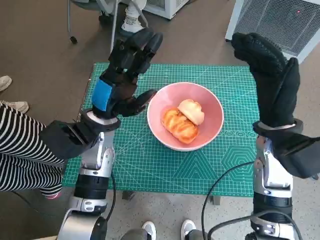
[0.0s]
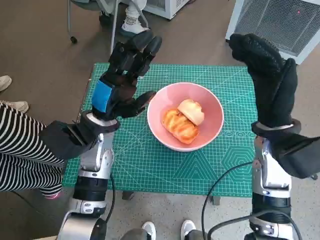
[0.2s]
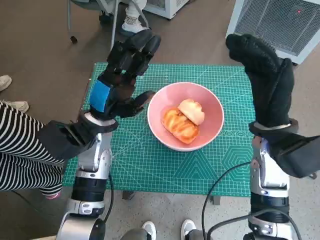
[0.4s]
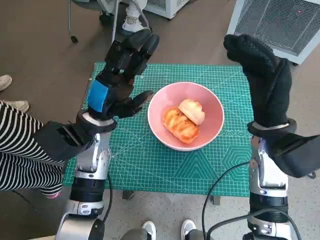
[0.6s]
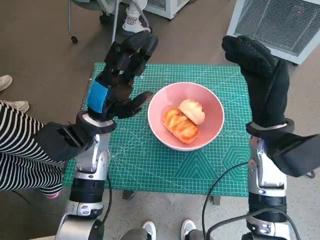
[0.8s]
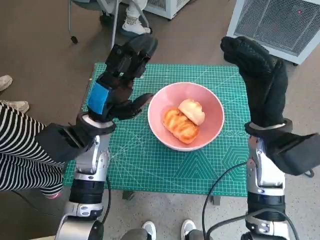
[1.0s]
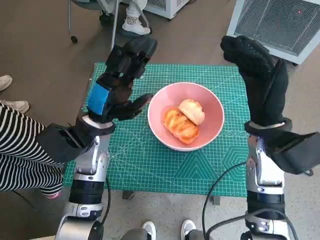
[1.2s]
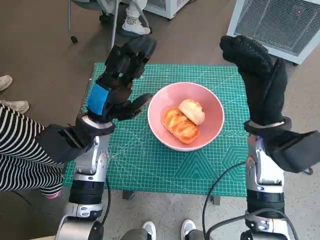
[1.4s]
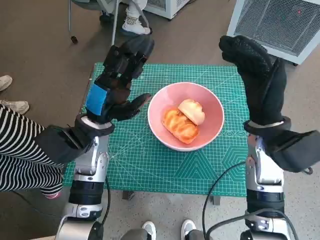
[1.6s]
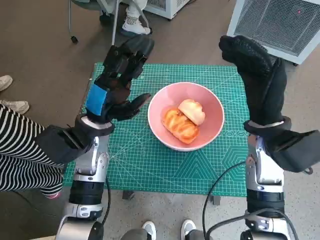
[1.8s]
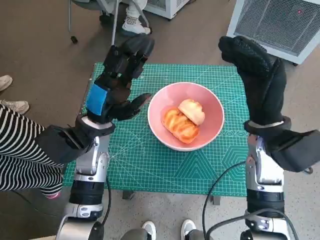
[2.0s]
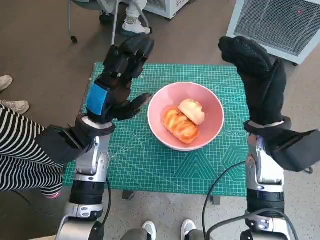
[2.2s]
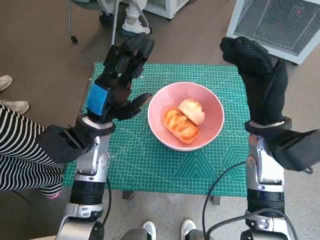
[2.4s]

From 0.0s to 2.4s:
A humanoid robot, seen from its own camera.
Task of the whole recording: Push the bowl into the center of the table and put the bread into the bowl.
From 1.2s to 2.4s: Neither hand changes place.

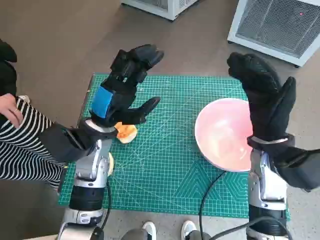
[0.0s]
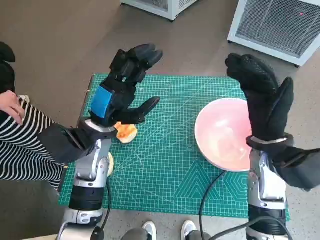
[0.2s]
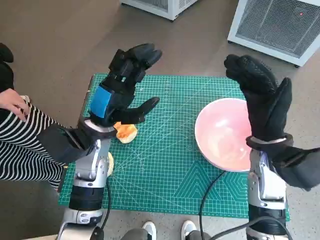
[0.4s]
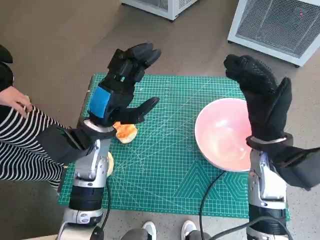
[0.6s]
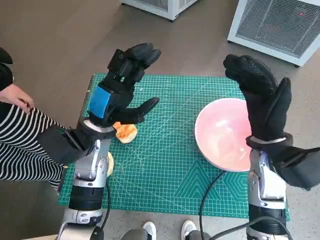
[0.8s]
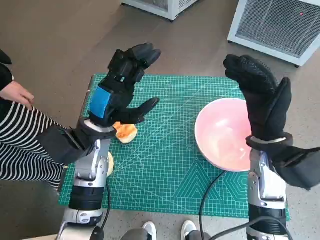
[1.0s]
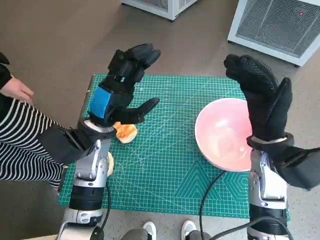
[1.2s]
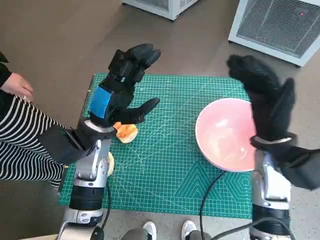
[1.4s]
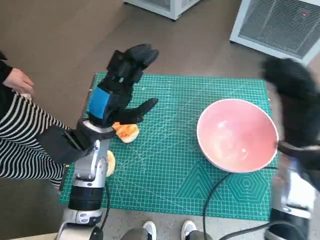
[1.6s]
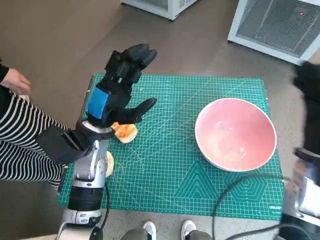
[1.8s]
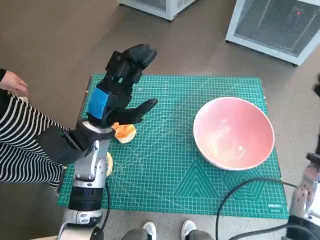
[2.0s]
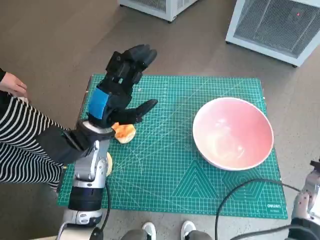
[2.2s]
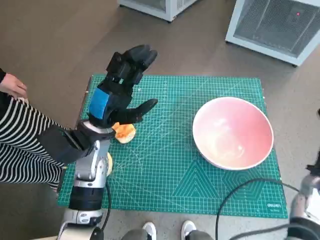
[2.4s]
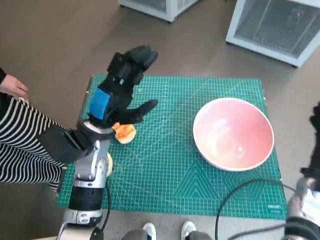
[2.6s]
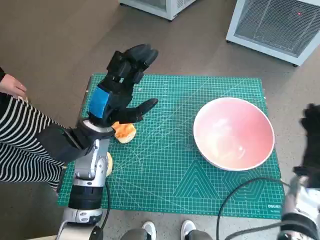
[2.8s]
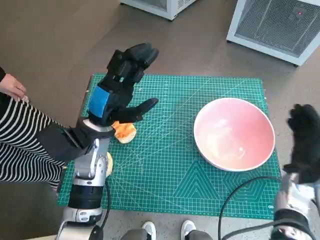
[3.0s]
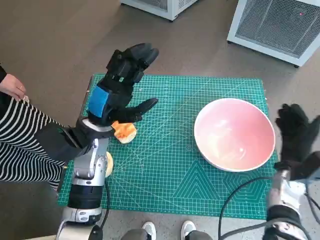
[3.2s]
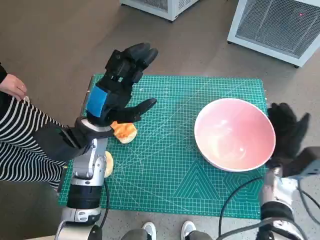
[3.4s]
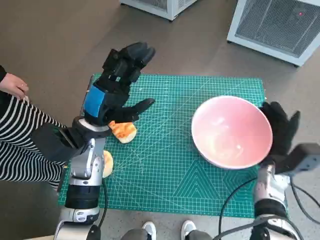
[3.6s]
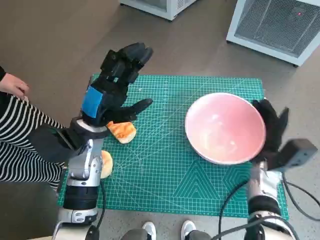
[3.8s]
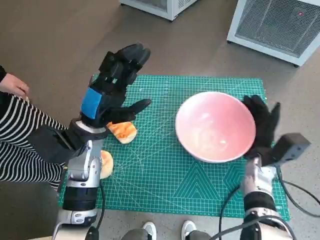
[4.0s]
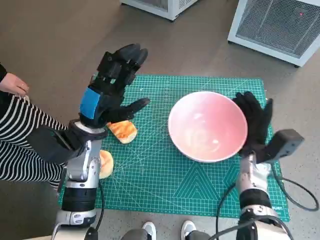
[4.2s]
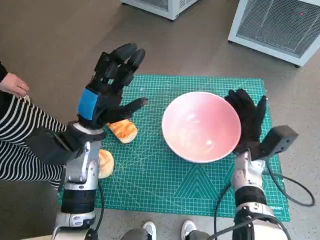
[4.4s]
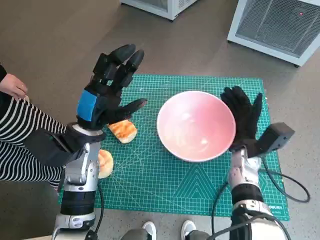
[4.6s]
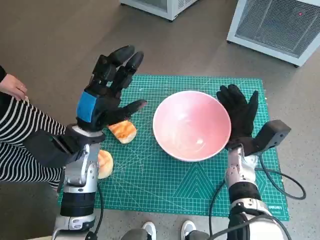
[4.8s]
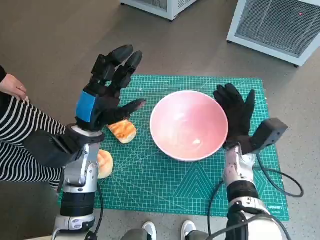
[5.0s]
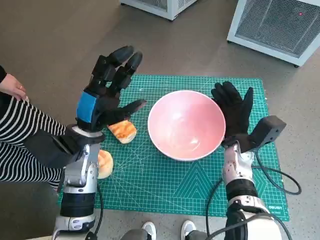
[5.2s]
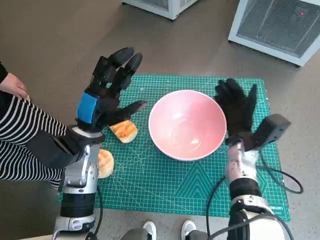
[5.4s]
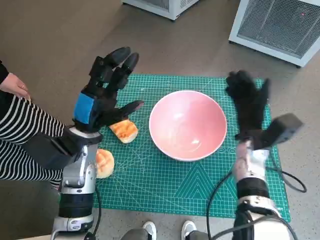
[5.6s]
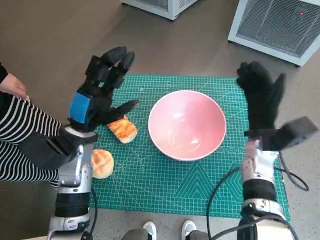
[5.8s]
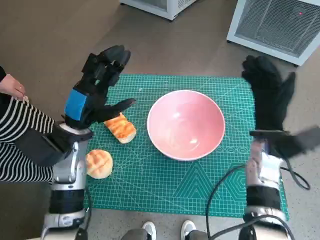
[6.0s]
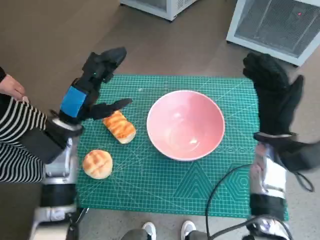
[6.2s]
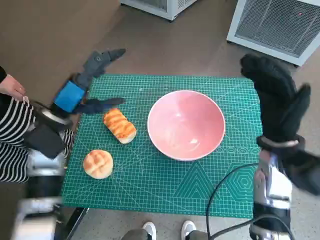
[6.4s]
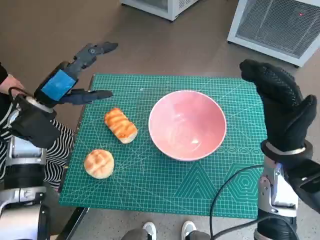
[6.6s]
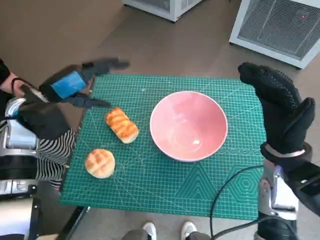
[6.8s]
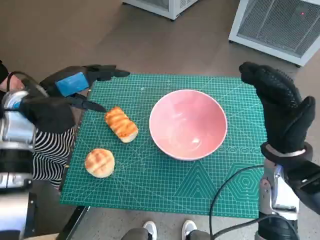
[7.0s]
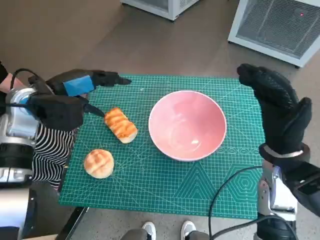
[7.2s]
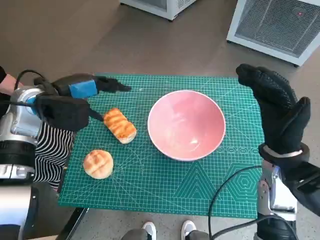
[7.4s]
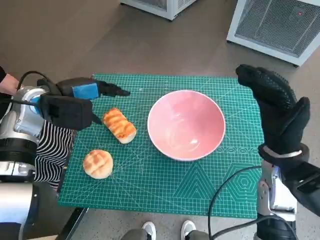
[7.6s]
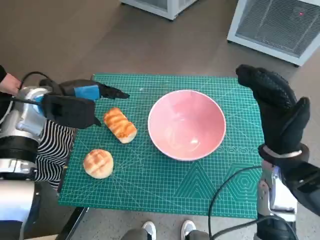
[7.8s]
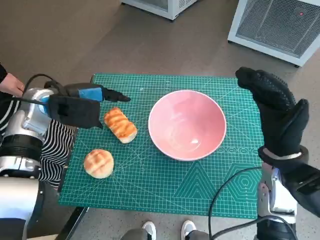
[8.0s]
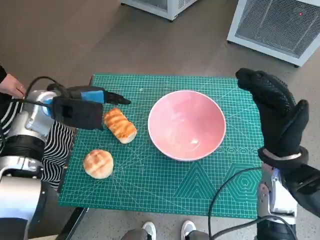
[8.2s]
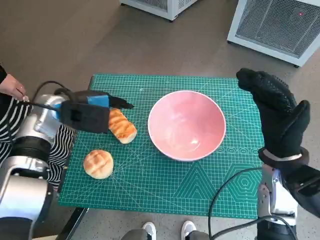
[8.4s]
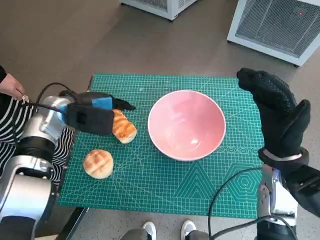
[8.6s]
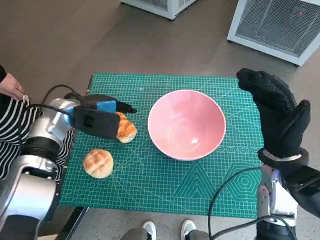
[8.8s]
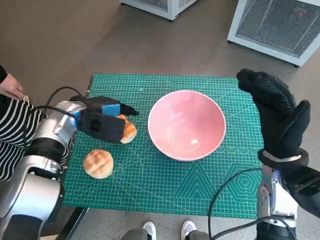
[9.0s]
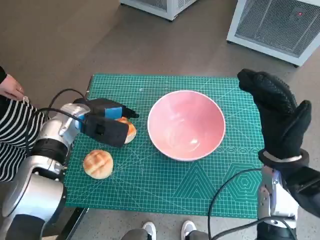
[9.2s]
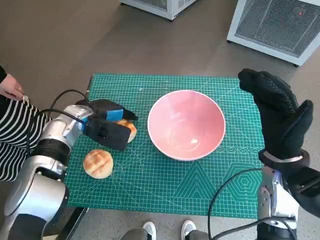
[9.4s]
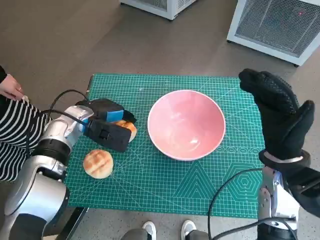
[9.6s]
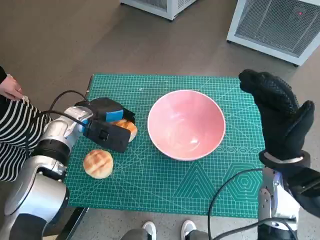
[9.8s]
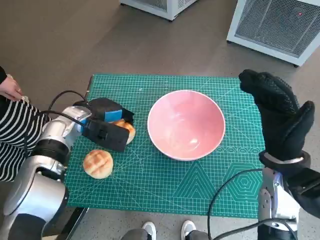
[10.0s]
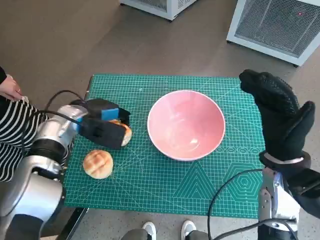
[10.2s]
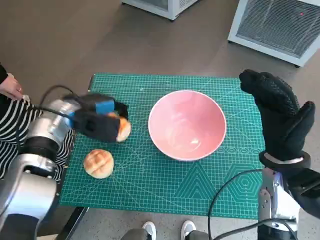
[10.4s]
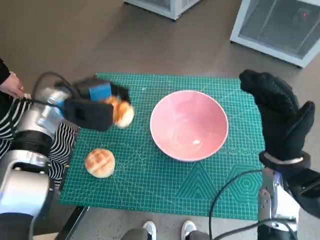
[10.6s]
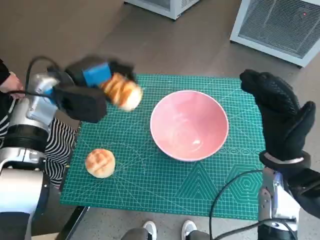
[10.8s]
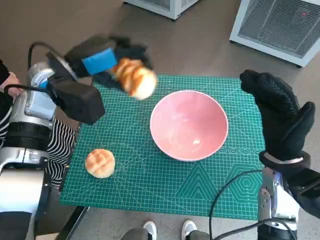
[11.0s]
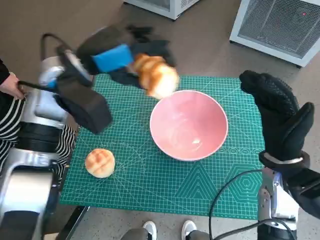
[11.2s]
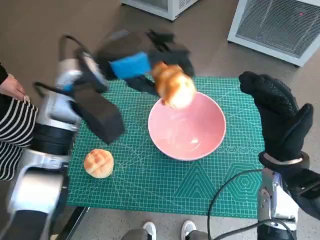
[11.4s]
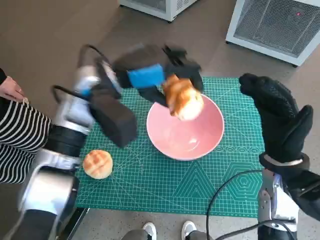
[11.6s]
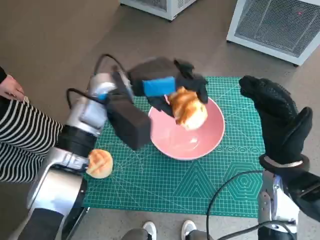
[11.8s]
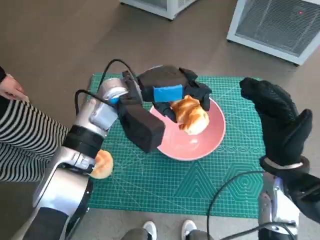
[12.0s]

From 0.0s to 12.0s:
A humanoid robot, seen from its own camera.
Task of the whole recording: Push the bowl into the center of the table and put the bread into the bowl.
Step, from 0.0s to 5.4s: Move the pink bowl to the center of table with right hand.
Step, from 5.6s to 9.8s: Grasp the long bread with left hand.
From 1.6s to 3.0s: The right hand heads downward and to the right, covering some 15 cm.
From 3.0s to 4.4s: The right hand moves to the left, roughly 10 cm.
From 4.4s to 6.0s: The right hand shifts approximately 5 cm upward.
From 6.0s to 7.6s: The left hand heads upward, forward and to the left, covering about 10 cm. The right hand travels backward by approximately 5 cm.
From 7.6s to 9.0s: The left hand is displaced downward by roughly 5 cm.
From 9.0s to 10.4s: There are only small adjustments of the hands.
From 10.4s to 12.0s: The left hand travels to the right and upward by roughly 15 cm.

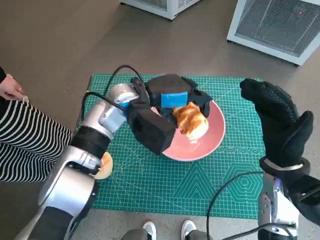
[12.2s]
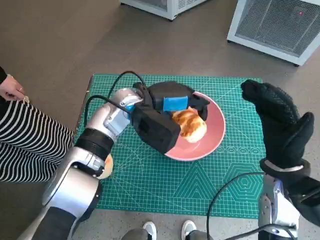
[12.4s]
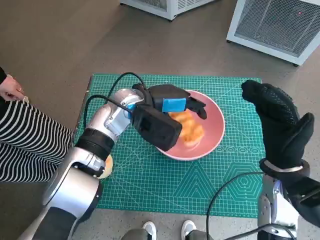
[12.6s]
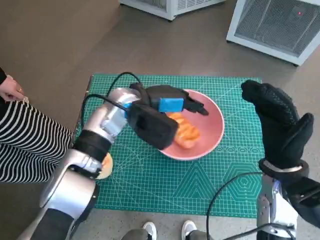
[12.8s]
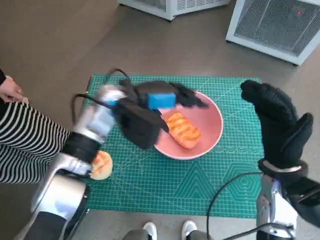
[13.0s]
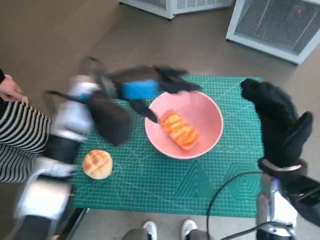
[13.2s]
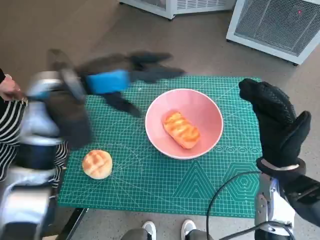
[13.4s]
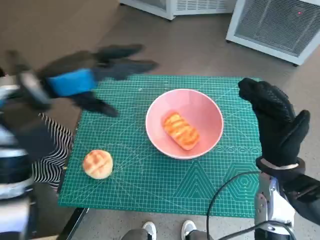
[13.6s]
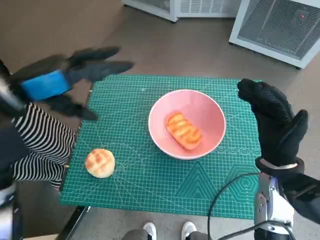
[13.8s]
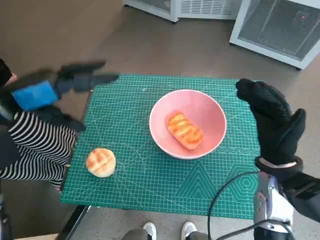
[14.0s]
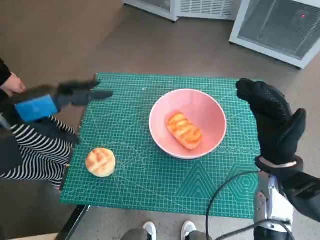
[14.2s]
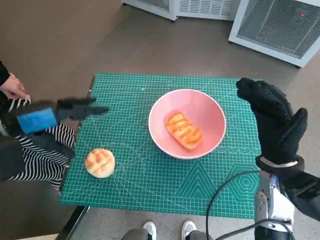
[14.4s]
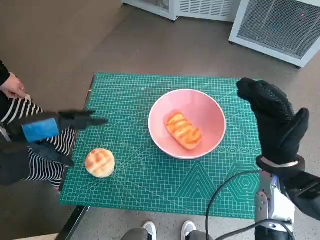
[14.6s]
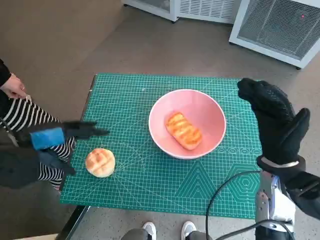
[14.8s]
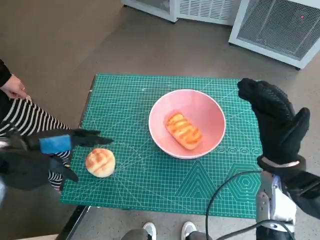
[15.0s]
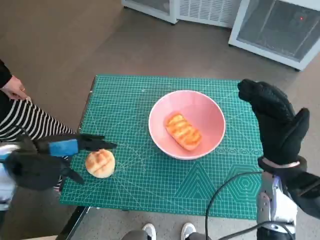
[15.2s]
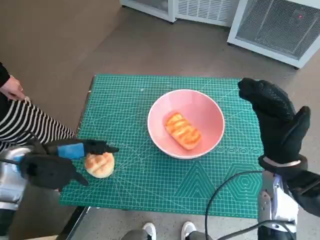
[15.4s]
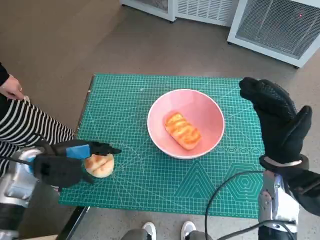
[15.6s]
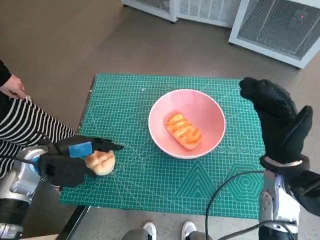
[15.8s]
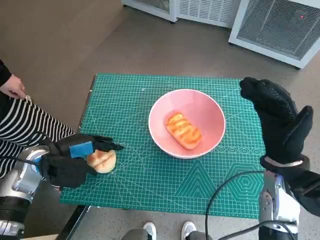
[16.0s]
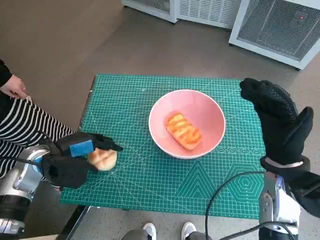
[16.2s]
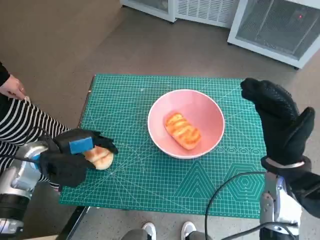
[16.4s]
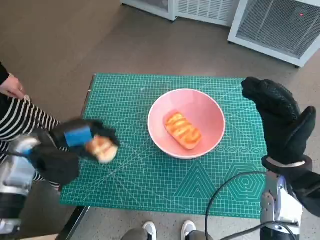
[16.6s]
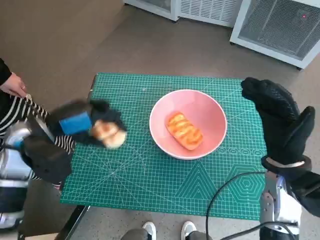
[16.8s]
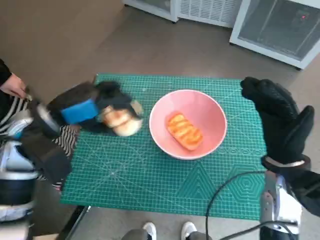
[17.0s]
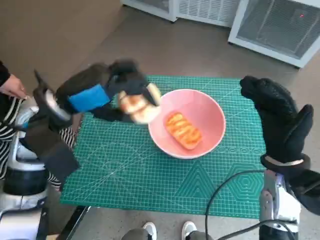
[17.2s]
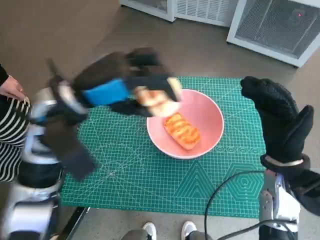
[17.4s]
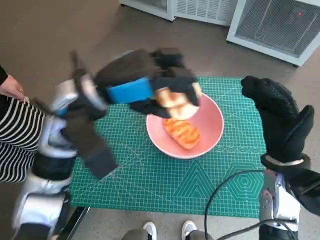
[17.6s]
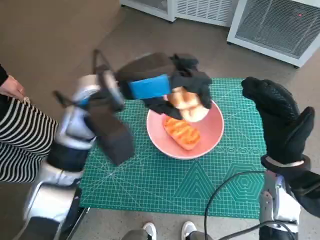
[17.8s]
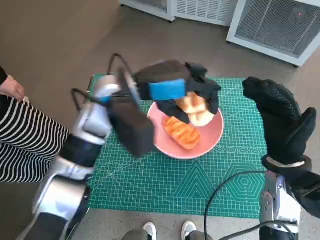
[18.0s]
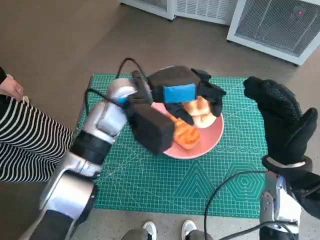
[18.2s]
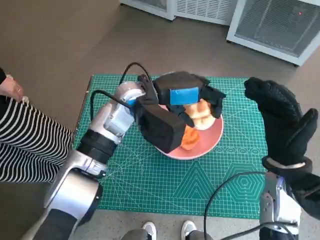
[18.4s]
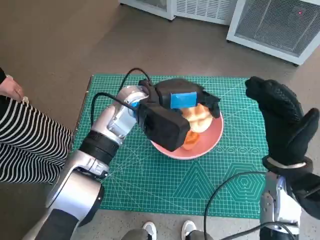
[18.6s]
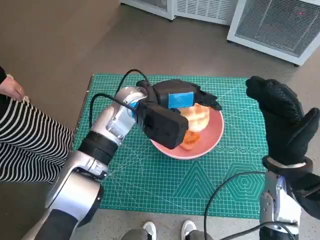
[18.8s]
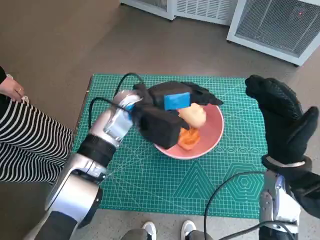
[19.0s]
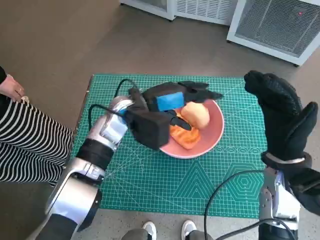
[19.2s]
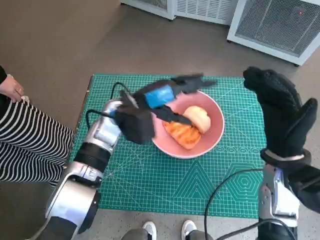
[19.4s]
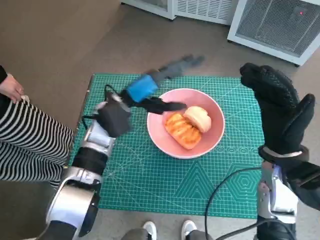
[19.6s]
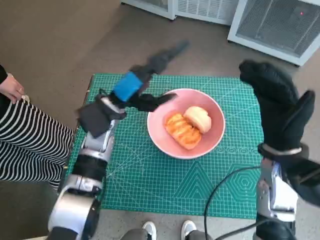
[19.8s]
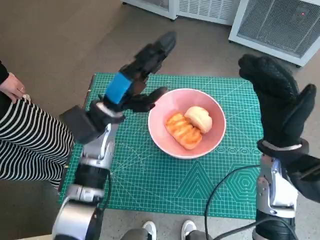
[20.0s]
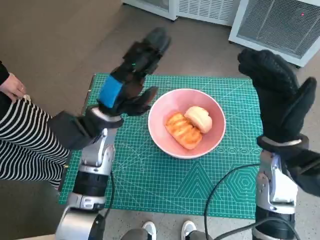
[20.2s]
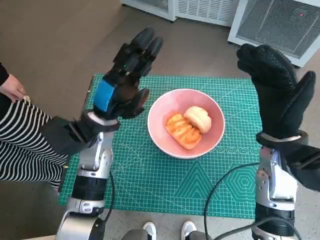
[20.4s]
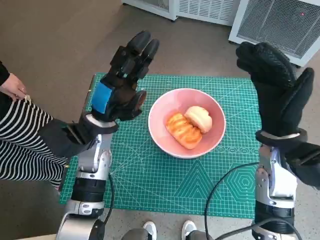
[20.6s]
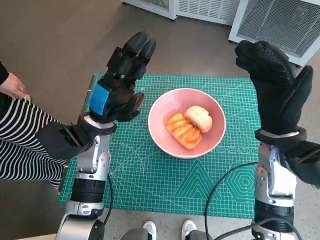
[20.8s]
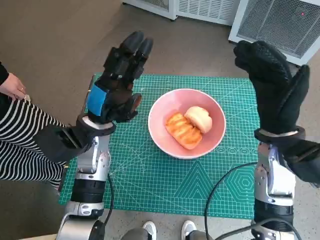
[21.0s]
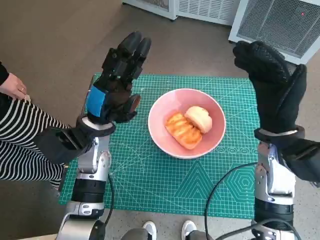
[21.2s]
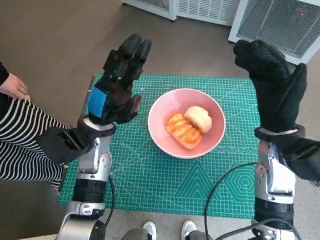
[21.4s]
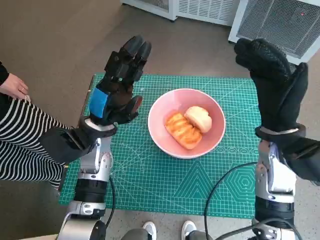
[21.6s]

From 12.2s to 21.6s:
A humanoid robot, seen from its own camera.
Task of the whole recording: Push the bowl into the center of the table and put the bread into the bowl.
Step, from 13.4s to 16.4s: Grasp the round bread with left hand.
Step, from 16.6s to 19.4s: Place the round bread in pink bowl with left hand.
From 12.2s to 13.8s: The left hand is displaced to the left, upward and backward by approximately 20 cm.
From 13.8s to 15.4s: The left hand is displaced downward by roughly 15 cm.
From 15.4s to 17.0s: The left hand heads upward, covering approximately 5 cm.
From 17.0s to 18.4s: The left hand goes about 20 cm to the right and forward.
From 18.4s to 20.0s: The left hand moves to the left and downward, roughly 10 cm.
